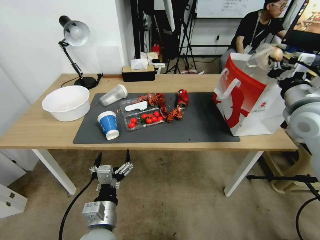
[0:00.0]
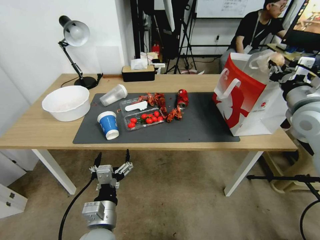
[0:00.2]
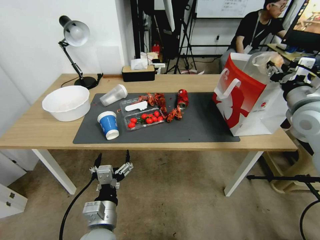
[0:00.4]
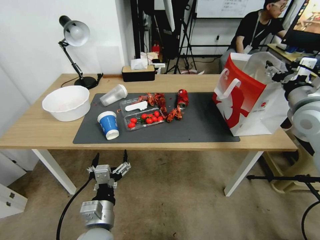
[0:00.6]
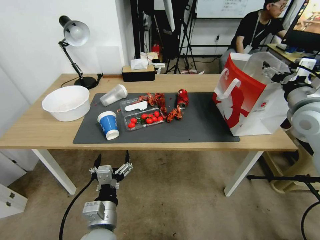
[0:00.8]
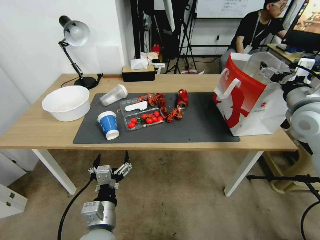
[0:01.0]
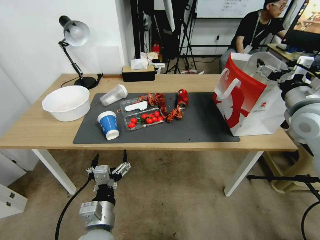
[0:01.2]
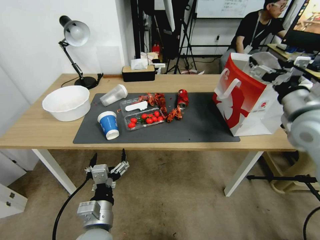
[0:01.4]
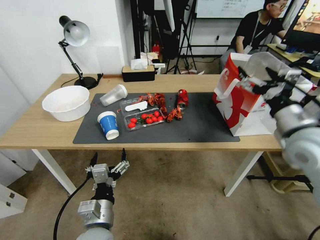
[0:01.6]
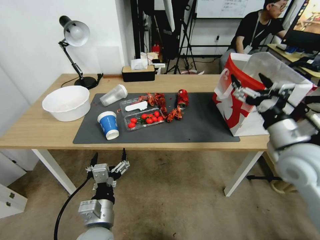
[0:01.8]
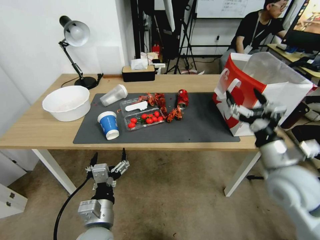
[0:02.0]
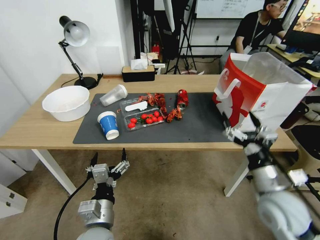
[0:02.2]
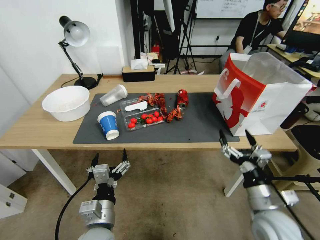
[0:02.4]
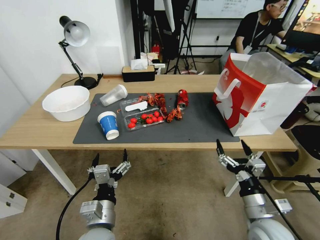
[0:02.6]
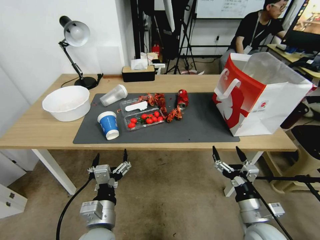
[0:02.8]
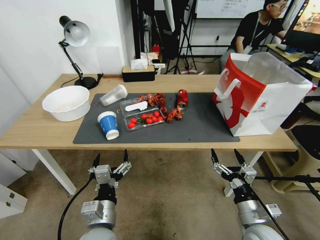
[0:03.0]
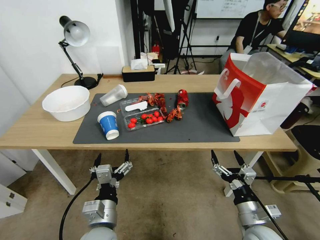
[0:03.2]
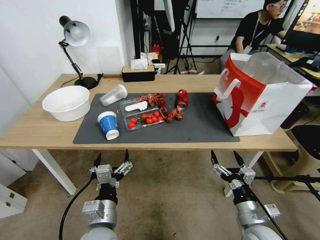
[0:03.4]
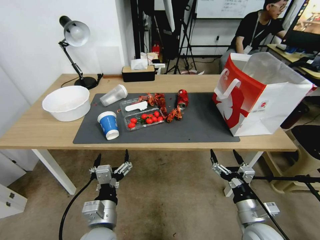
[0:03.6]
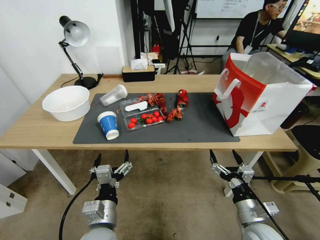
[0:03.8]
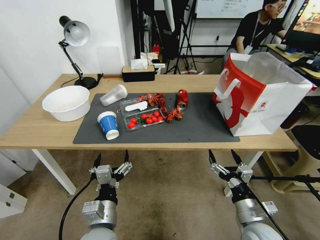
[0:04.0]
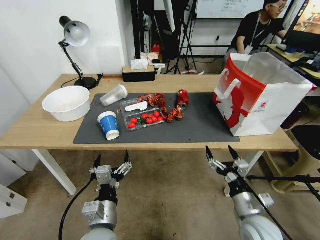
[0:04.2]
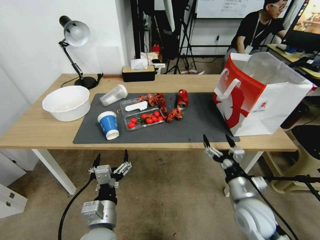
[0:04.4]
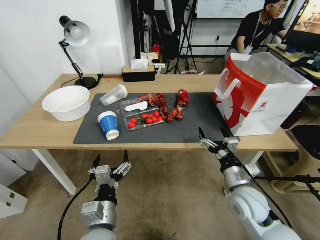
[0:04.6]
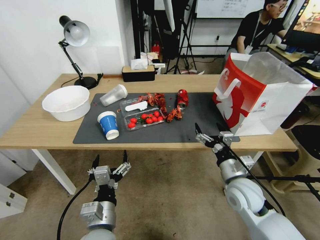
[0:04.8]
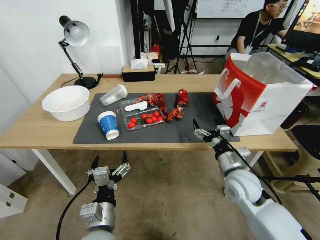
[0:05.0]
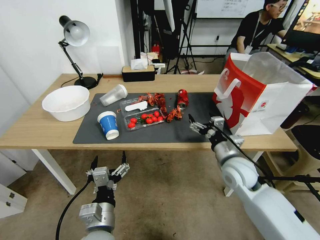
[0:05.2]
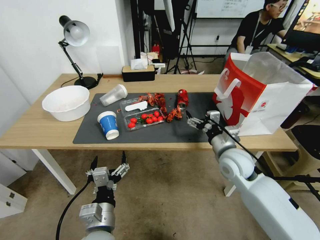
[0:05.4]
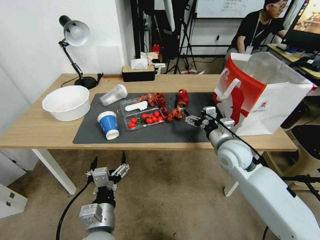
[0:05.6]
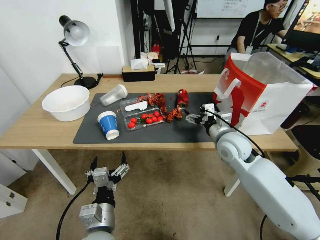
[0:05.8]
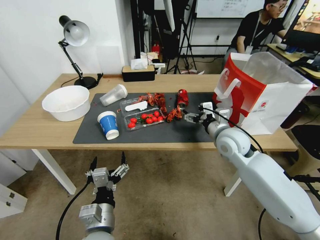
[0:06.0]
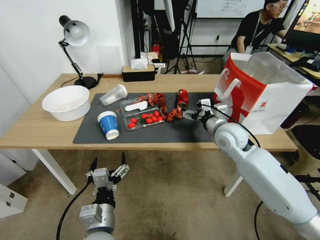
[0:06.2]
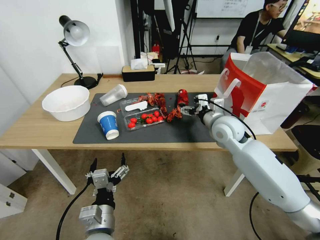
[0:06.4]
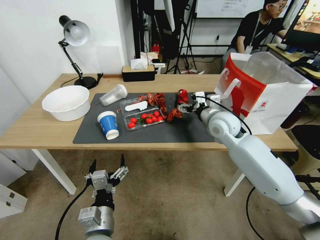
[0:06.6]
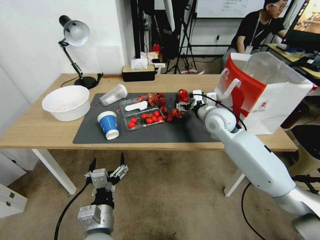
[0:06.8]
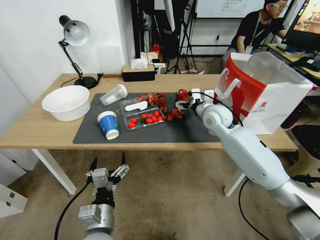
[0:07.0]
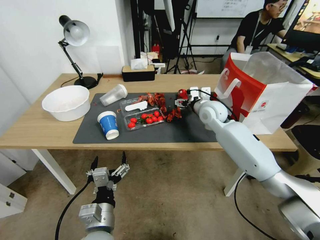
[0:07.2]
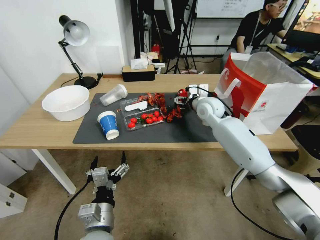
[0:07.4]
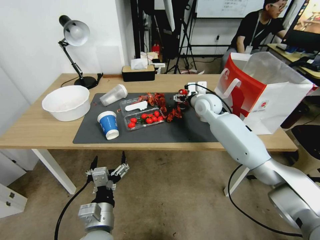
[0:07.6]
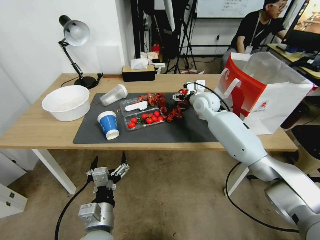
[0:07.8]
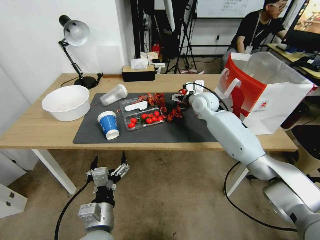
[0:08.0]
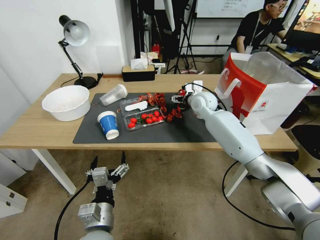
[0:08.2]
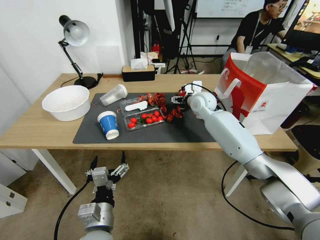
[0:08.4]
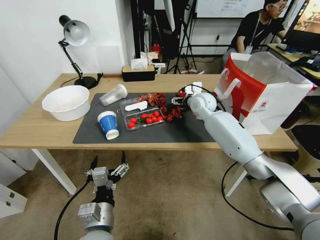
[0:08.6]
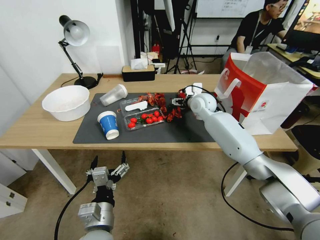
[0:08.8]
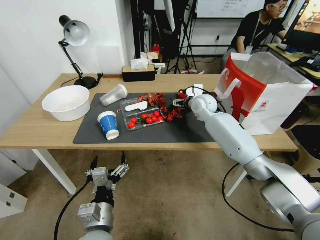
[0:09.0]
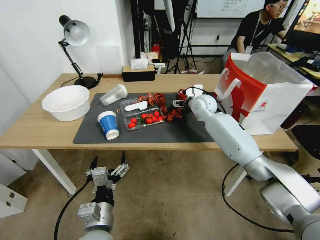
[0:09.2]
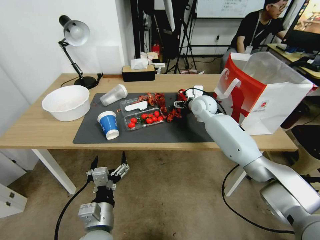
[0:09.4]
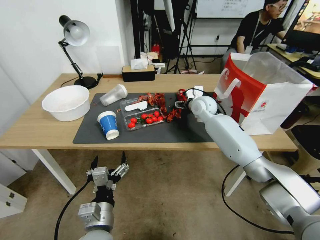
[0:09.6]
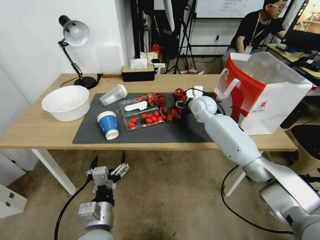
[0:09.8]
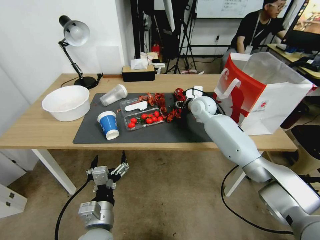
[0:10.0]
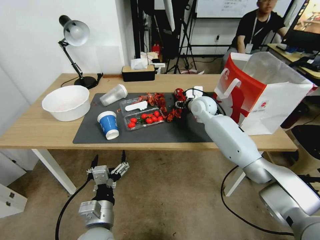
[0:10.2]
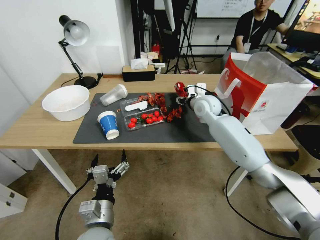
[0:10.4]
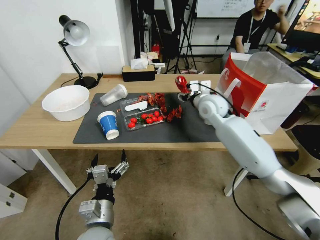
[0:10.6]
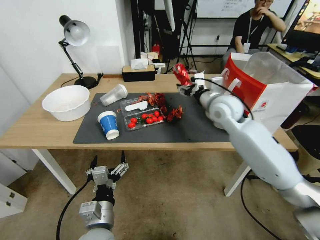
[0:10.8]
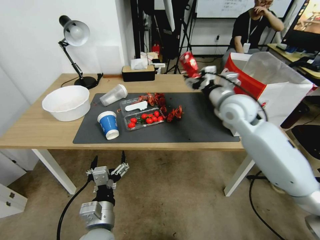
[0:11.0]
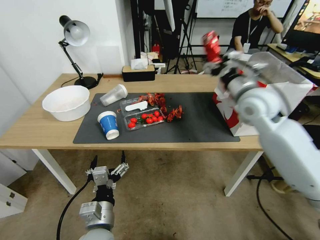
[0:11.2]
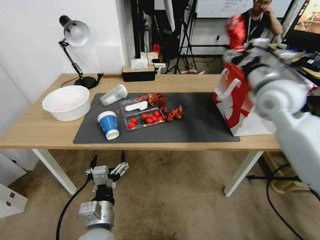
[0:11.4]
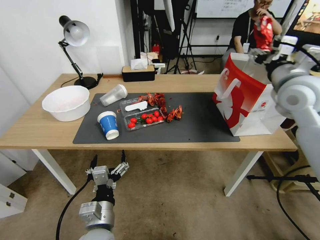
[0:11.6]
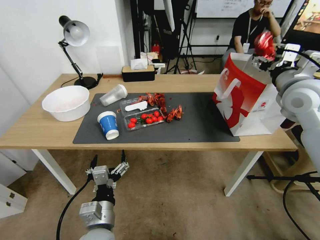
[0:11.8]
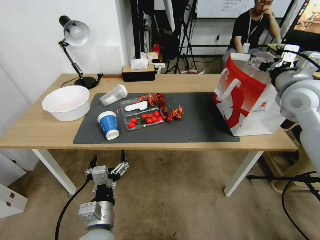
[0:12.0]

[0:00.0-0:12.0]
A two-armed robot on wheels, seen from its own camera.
0:00.0 to 0:01.6: The right gripper shifts about 5 cm backward, and opens.
0:01.6 to 0:03.0: The right gripper goes roughly 30 cm downward and backward.
0:03.0 to 0:04.4: The right gripper goes about 5 cm forward.
0:04.4 to 0:06.0: The right gripper is displaced forward and upward by some 20 cm.
0:06.0 to 0:07.6: The right gripper goes some 15 cm forward.
0:07.6 to 0:09.0: There are only small adjustments of the grippers.
0:09.0 to 0:10.4: The right gripper closes up.
0:10.4 to 0:12.0: The right gripper shifts about 25 cm to the right, upward and backward.

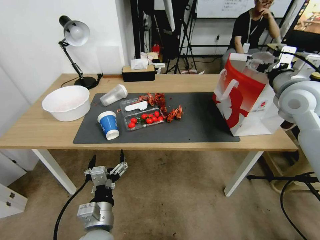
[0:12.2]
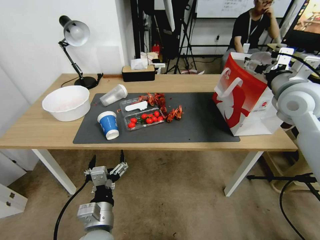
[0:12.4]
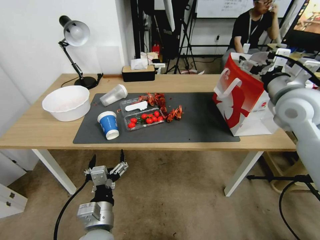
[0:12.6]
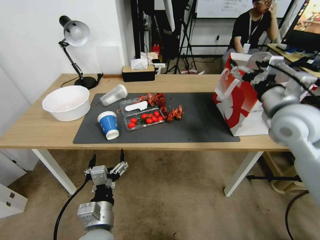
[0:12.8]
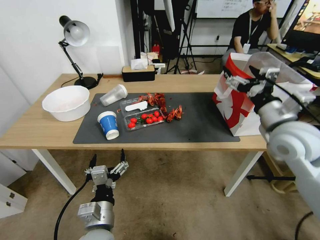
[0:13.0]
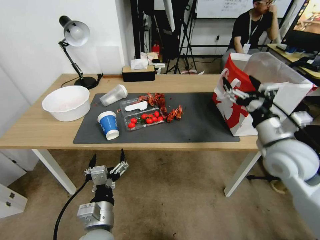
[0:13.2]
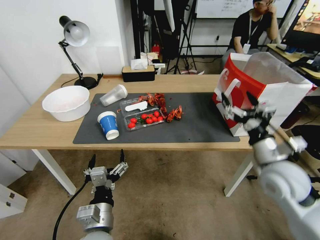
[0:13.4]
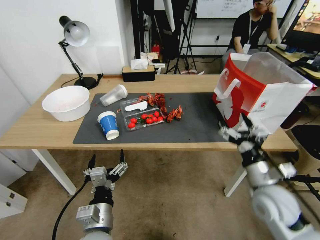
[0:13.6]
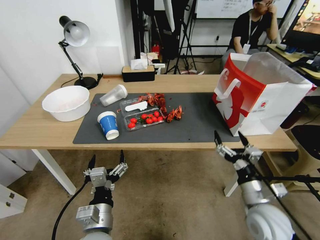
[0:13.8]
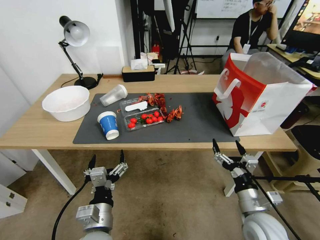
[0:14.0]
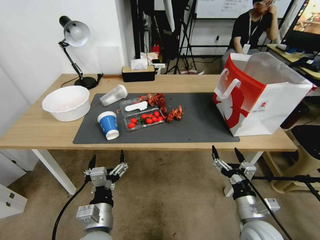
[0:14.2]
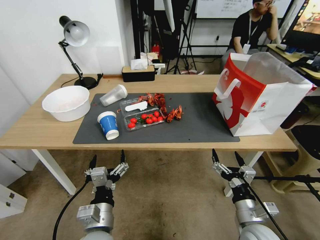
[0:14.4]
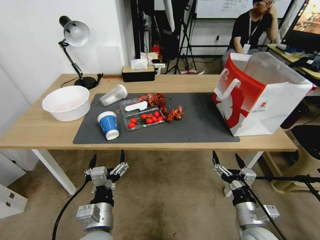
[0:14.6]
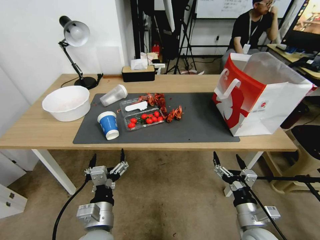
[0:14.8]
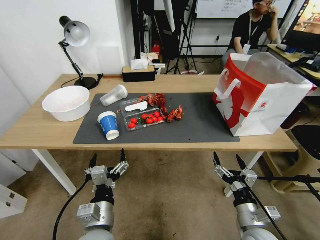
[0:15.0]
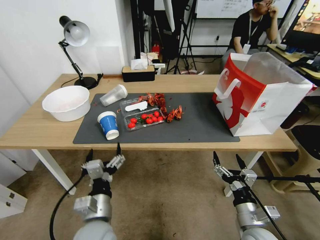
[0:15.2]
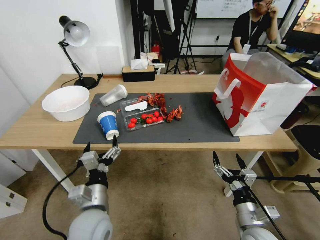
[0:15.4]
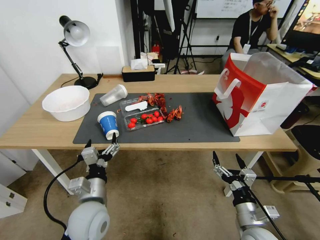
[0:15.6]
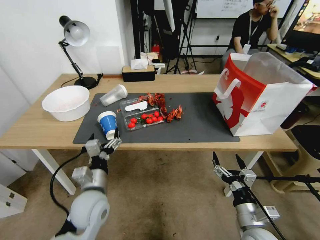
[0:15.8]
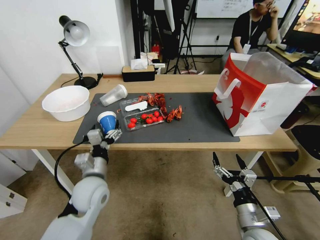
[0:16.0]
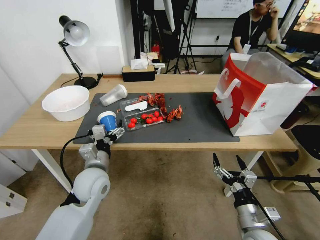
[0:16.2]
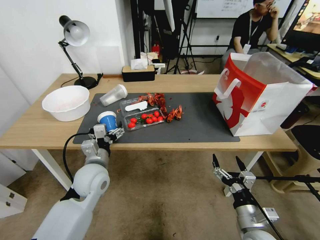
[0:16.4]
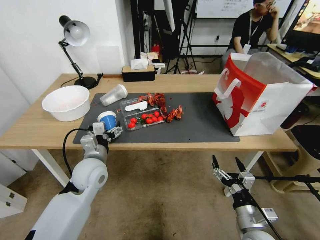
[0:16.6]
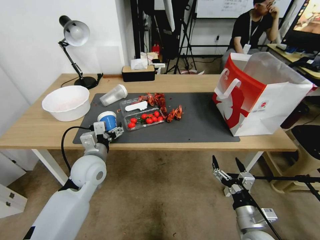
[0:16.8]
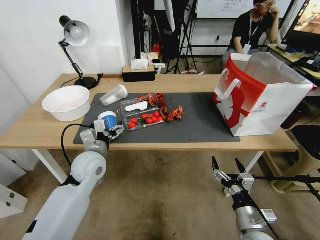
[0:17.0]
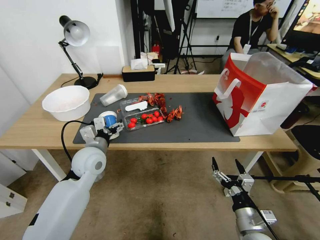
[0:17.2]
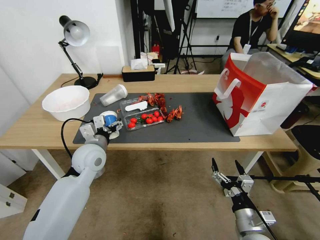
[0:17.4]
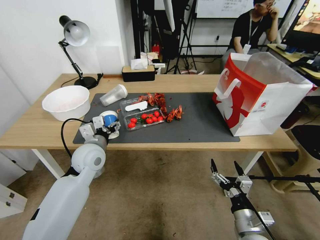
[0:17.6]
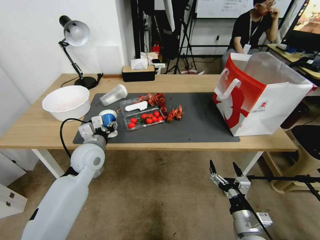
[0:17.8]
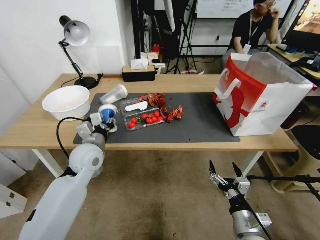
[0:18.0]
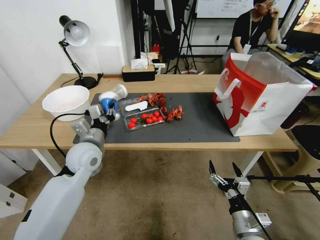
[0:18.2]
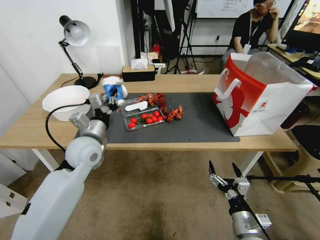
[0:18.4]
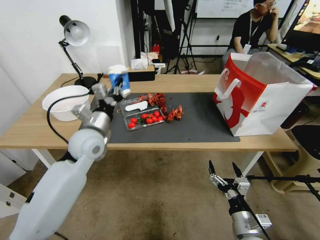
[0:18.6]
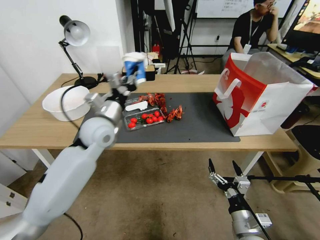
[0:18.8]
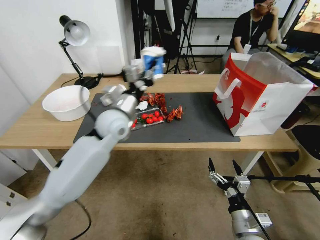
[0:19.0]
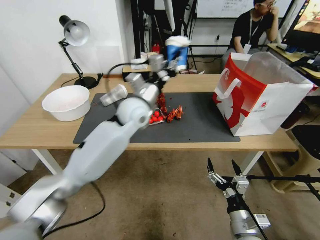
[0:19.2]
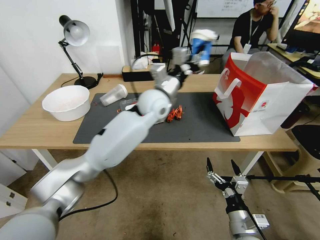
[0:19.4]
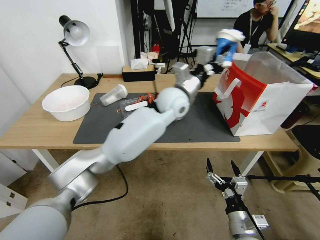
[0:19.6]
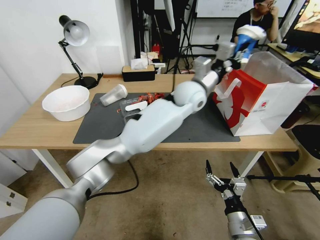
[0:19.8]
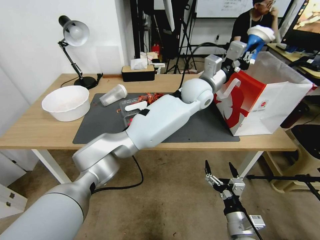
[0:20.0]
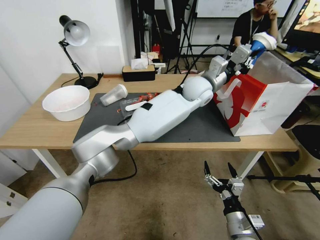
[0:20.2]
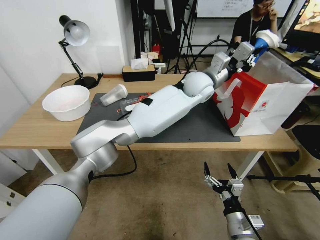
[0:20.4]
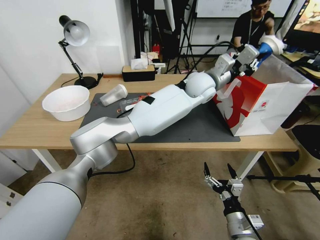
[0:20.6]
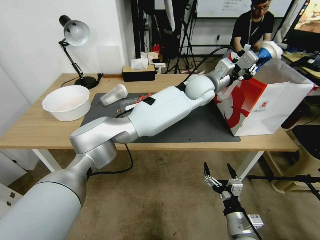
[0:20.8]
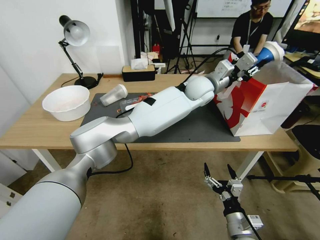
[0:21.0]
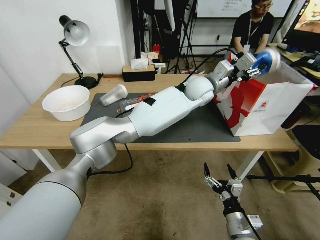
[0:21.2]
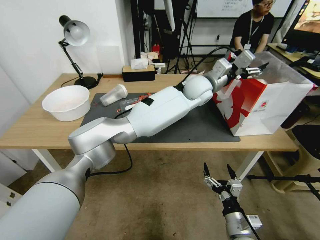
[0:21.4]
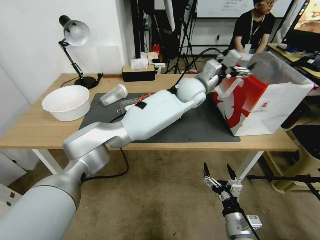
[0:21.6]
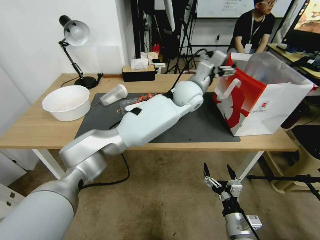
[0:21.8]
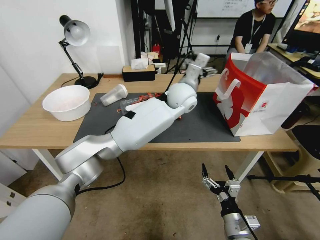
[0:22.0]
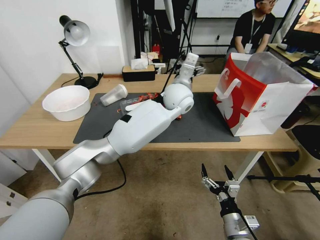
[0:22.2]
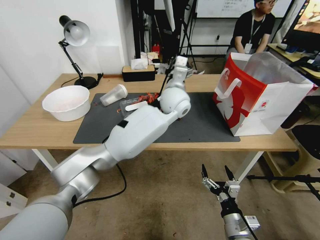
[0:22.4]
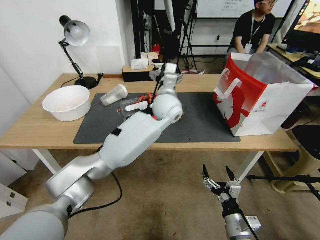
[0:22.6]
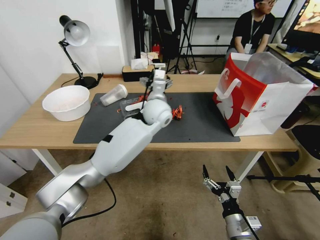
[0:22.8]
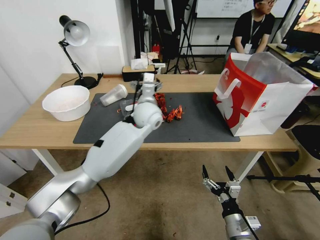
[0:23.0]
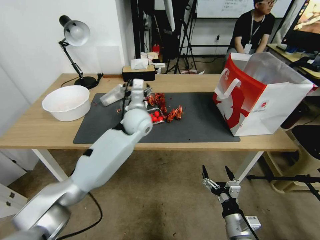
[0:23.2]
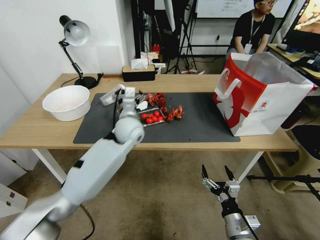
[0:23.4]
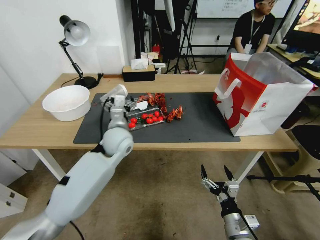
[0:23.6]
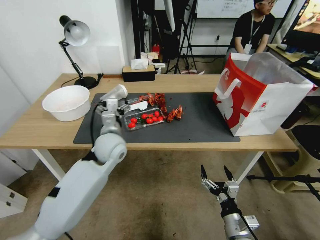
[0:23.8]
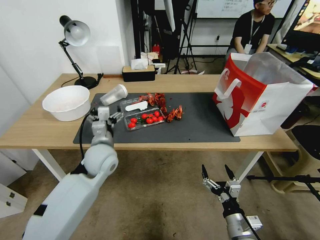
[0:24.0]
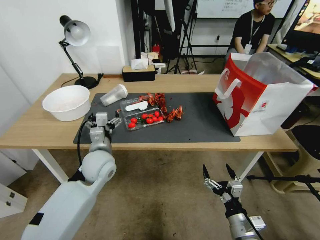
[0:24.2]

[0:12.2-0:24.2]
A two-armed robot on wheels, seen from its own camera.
0:12.2 to 0:13.8: The right gripper goes about 30 cm downward and backward.
0:13.8 to 0:15.2: The right gripper shifts some 10 cm downward and backward.
0:15.2 to 0:16.6: The left gripper is displaced forward by some 15 cm.
0:16.6 to 0:18.2: The left gripper moves about 5 cm, and closes.
0:18.2 to 0:19.8: The left gripper travels to the right and forward by approximately 35 cm.
0:19.8 to 0:21.2: The left gripper moves some 5 cm, and opens up.
0:21.2 to 0:22.6: The left gripper goes approximately 10 cm to the left, and opens up.
0:22.6 to 0:24.2: The left gripper goes about 30 cm to the left, backward and downward.
